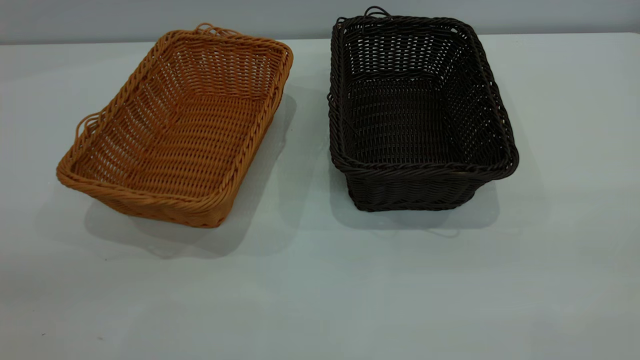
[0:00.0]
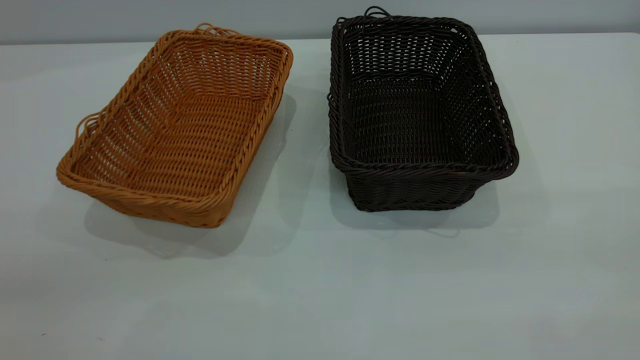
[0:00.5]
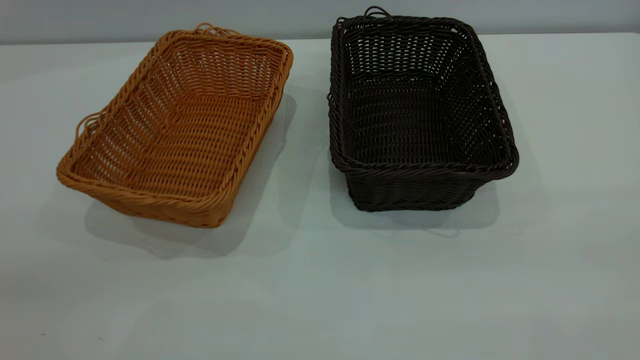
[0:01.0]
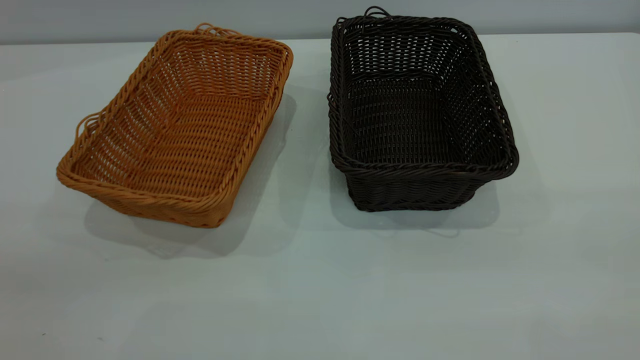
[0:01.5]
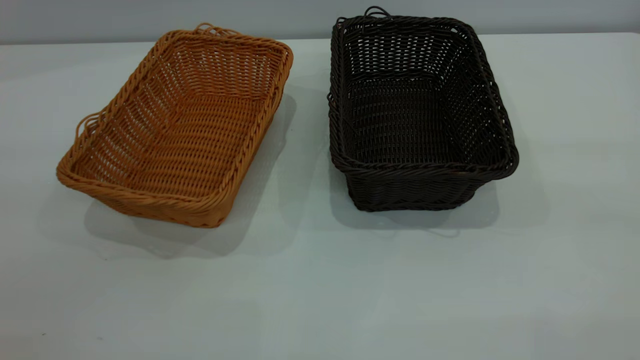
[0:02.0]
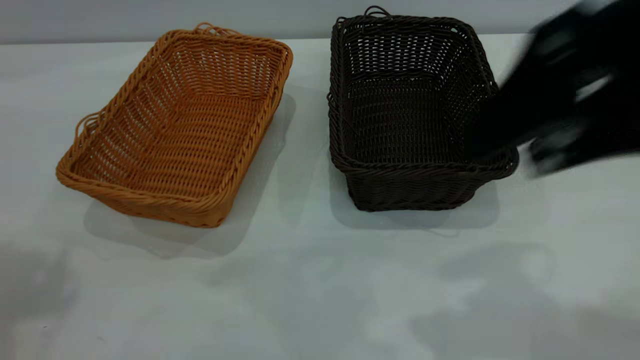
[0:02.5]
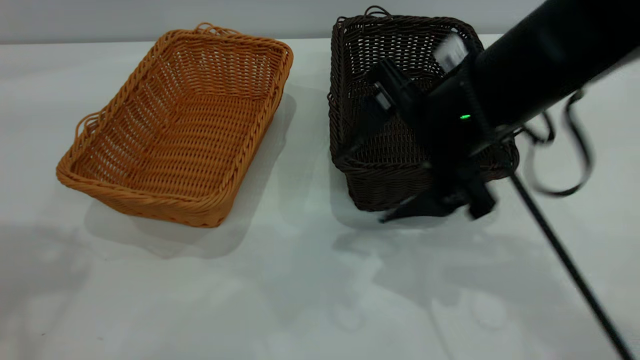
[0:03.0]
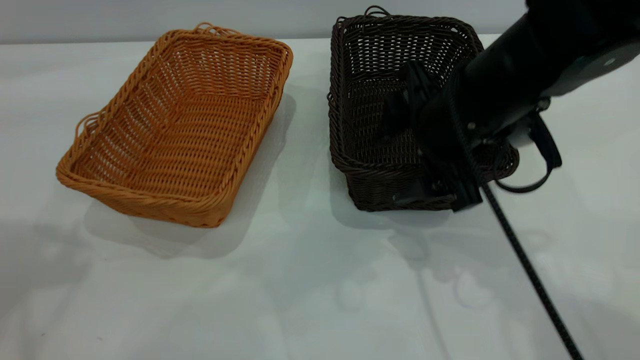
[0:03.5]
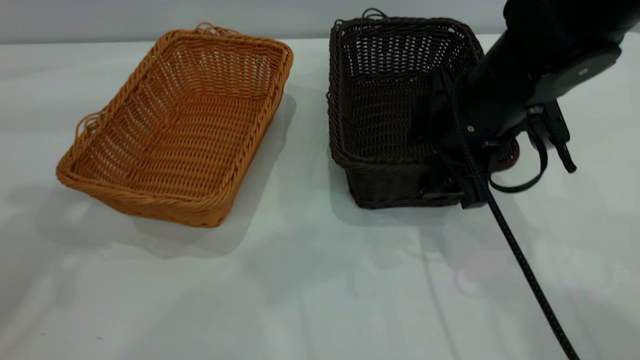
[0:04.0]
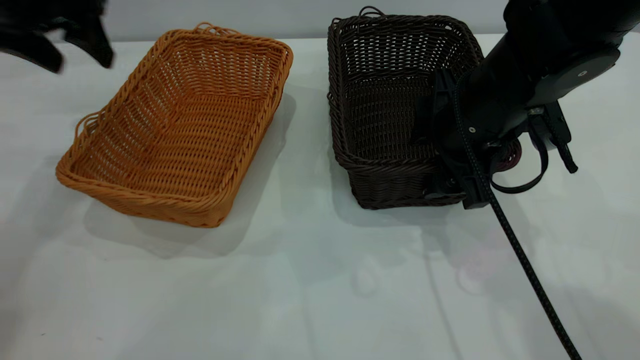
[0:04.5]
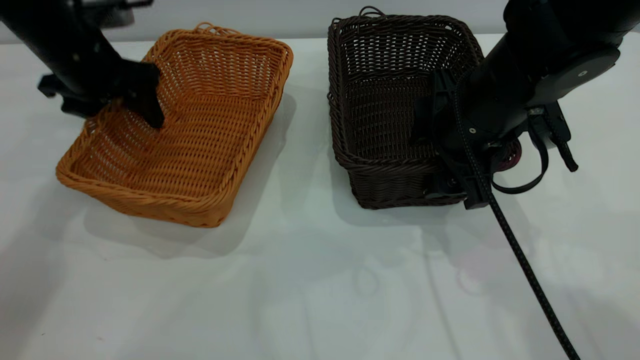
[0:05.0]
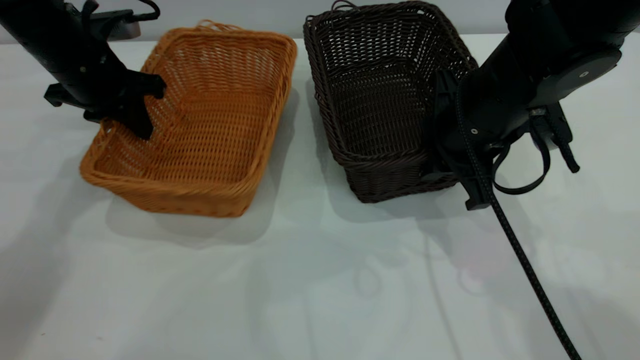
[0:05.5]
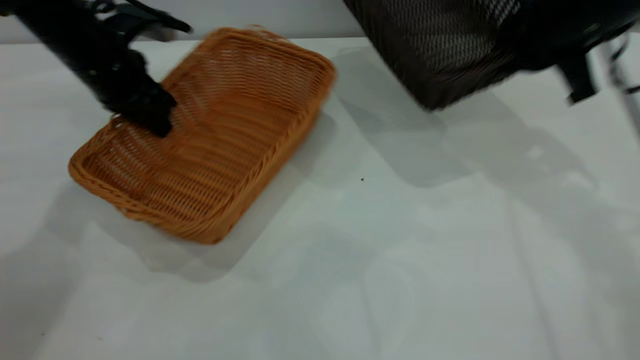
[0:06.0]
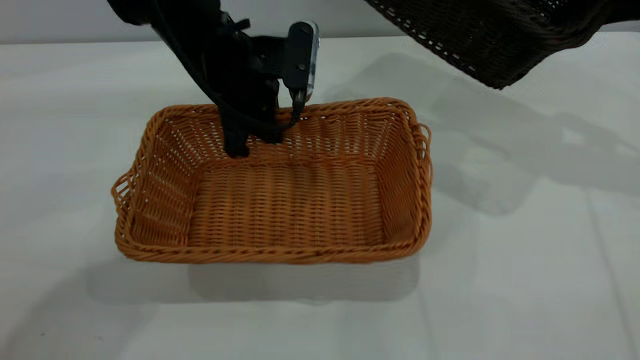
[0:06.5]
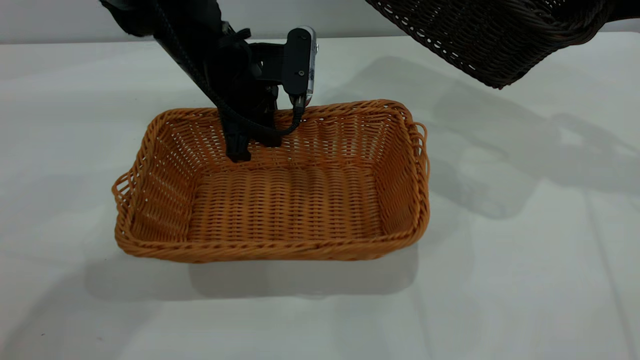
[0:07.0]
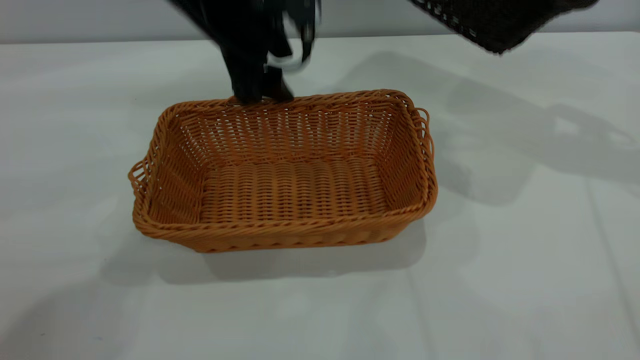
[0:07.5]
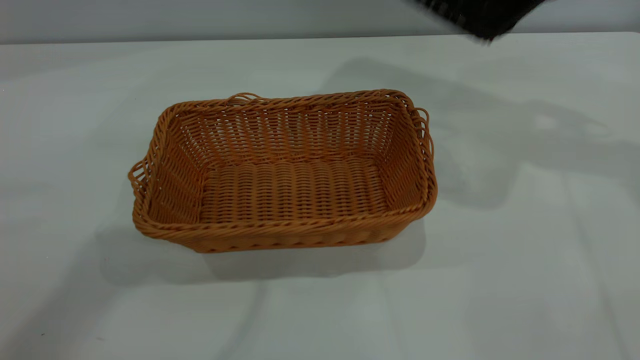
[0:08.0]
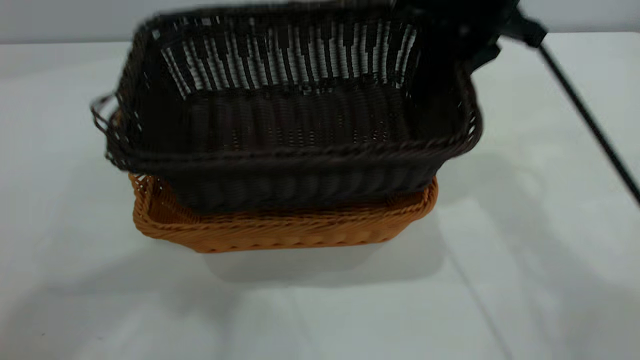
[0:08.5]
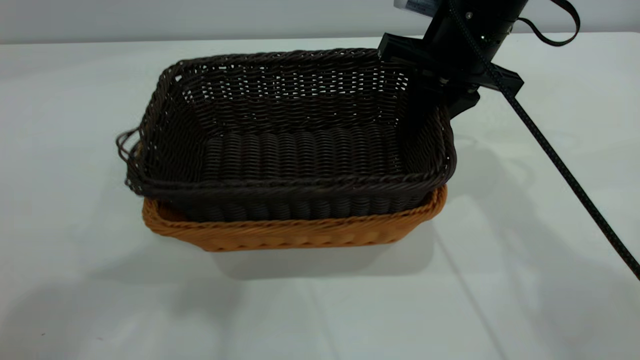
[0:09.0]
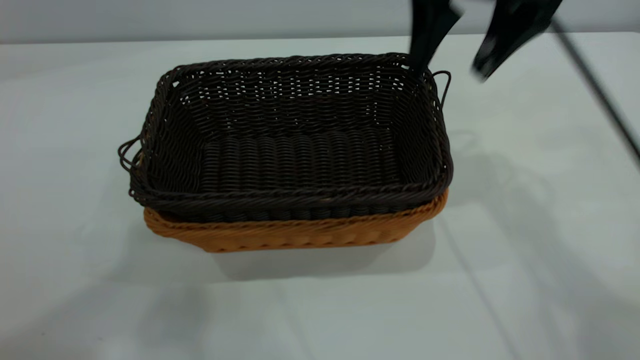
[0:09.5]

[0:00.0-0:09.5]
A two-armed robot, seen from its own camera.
Task of the whole recording: the left gripper grasp the brown basket and place it in the center of the table, the right gripper grasp the black basket and place it inside the brown one.
Step, 0:00.0 to 0:05.5: Pick up the light basket with the right gripper.
Step, 0:06.0 to 0:07.5: Place the light-colored basket in the center.
Step, 0:08.0 to 0:09.5: Place the dark basket on top of the light basket.
0:02.0 to 0:04.0: The right gripper is displaced forward, downward and to the left by some 35 cm; the left gripper shifts some 20 cm forward.
0:04.0 to 0:05.5: The right gripper closes up. The left gripper is displaced downward and forward by roughly 25 cm, and closes.
0:05.5 to 0:07.5: The left gripper is displaced to the right and upward by about 20 cm, and opens, while the right gripper goes roughly 25 cm to the right, upward and forward.
0:07.5 to 0:09.5: The left gripper shifts approximately 40 cm upward and backward. The right gripper is displaced to the left by some 15 cm, and opens up.
